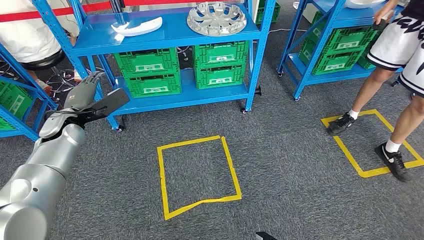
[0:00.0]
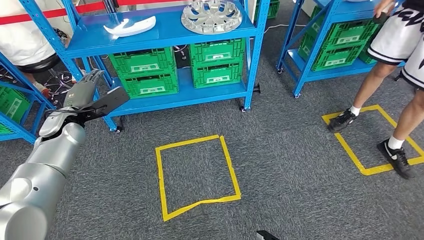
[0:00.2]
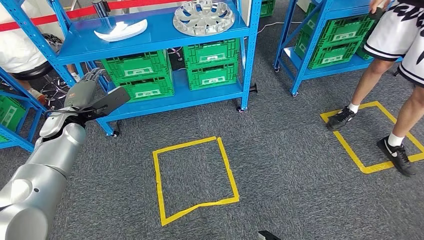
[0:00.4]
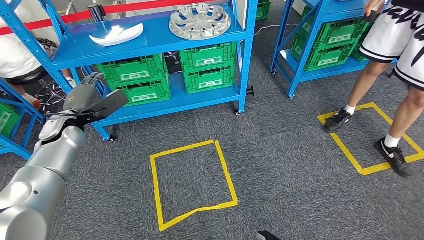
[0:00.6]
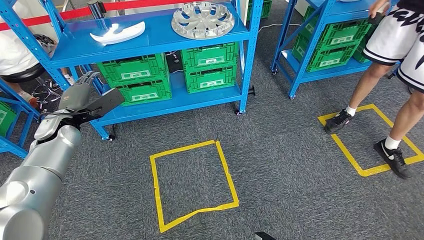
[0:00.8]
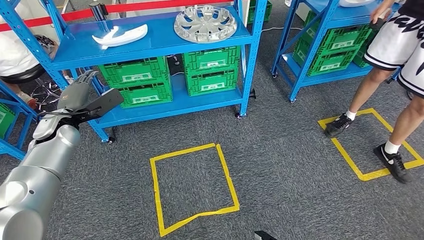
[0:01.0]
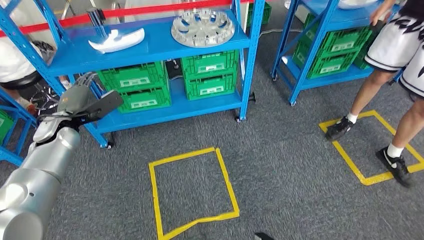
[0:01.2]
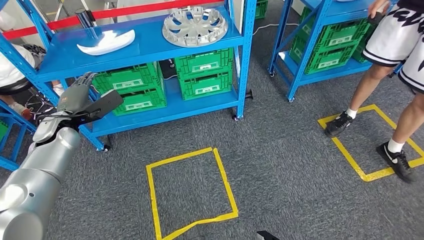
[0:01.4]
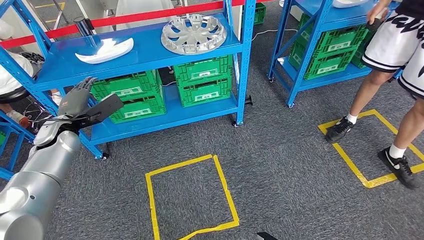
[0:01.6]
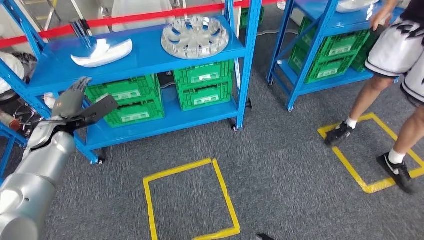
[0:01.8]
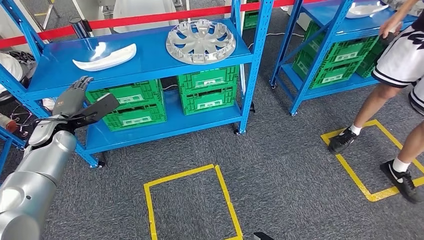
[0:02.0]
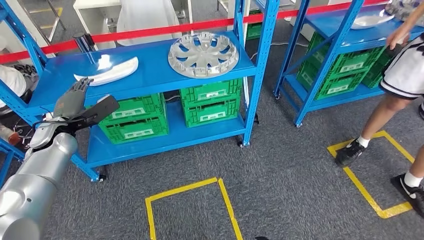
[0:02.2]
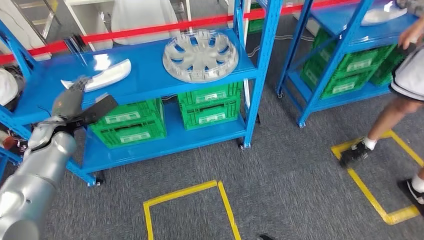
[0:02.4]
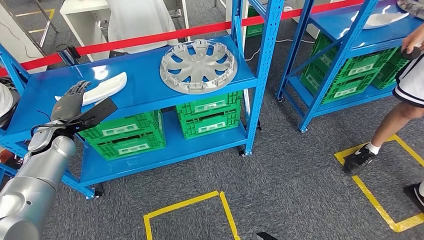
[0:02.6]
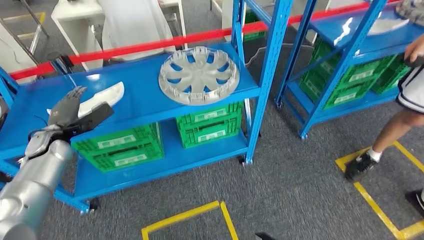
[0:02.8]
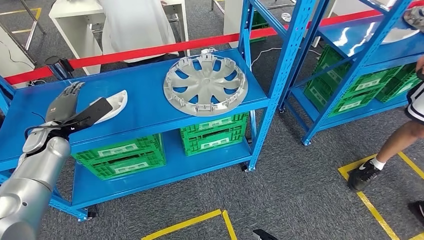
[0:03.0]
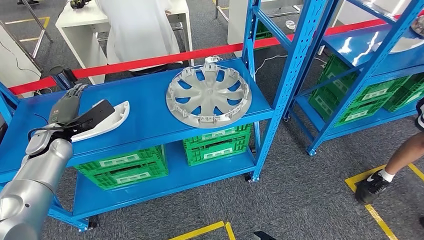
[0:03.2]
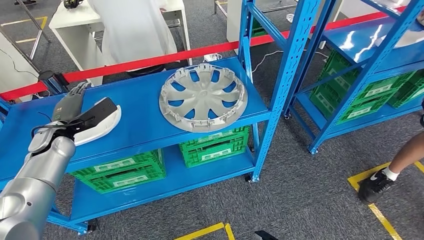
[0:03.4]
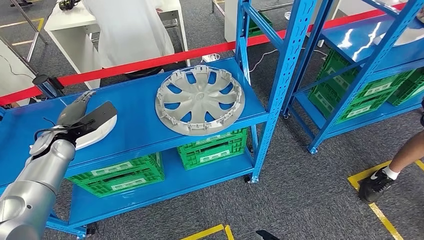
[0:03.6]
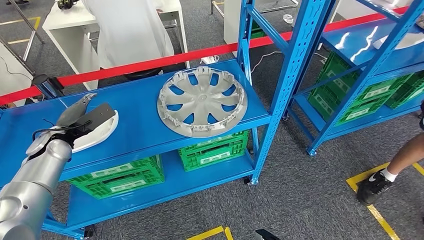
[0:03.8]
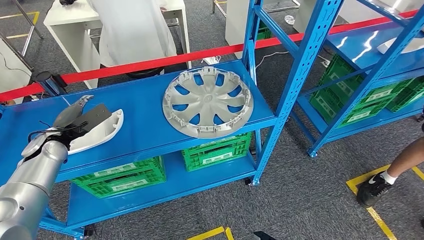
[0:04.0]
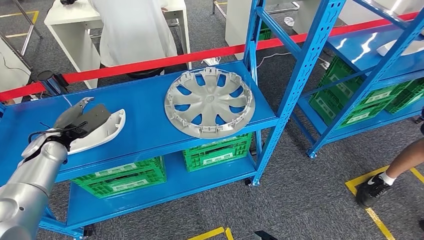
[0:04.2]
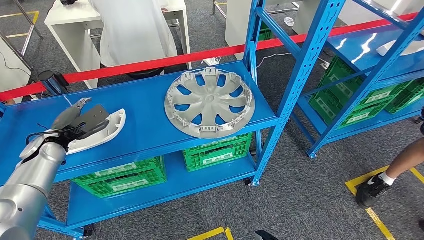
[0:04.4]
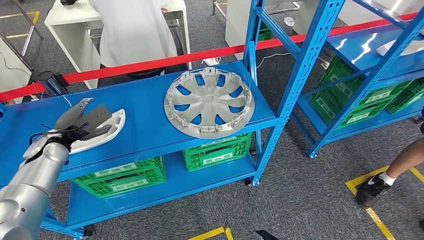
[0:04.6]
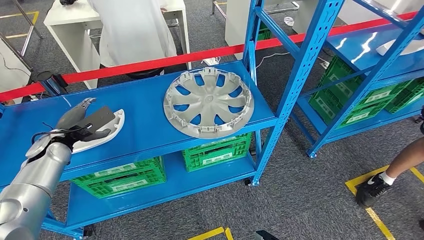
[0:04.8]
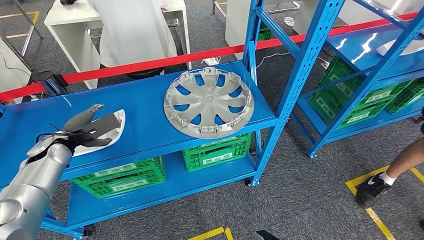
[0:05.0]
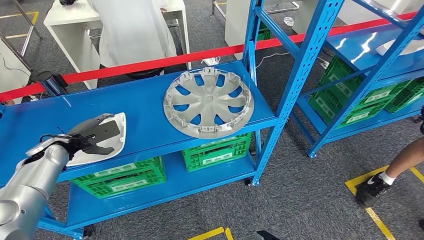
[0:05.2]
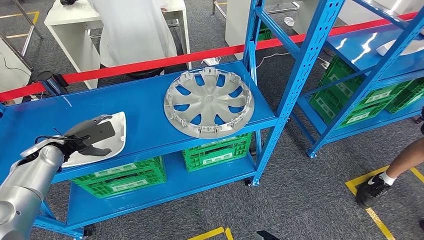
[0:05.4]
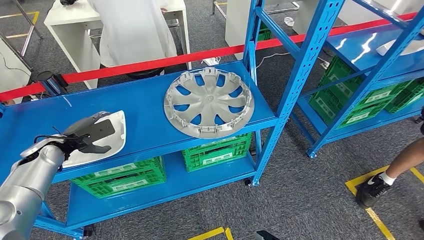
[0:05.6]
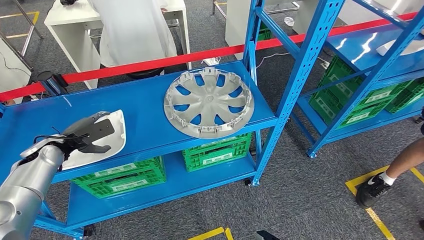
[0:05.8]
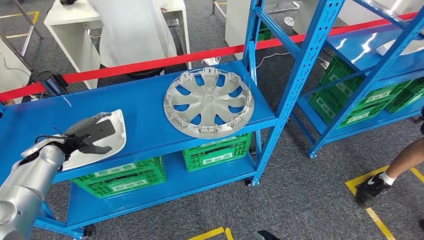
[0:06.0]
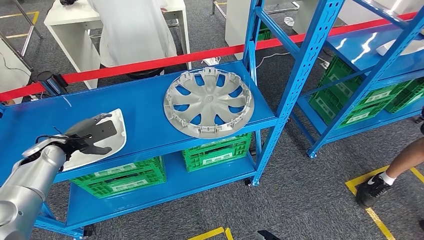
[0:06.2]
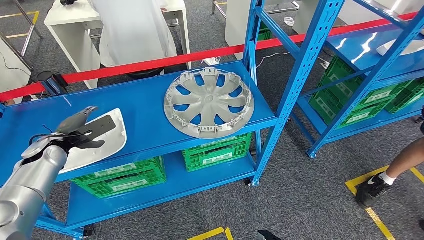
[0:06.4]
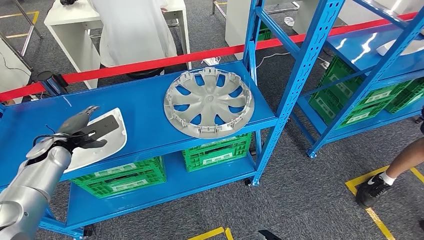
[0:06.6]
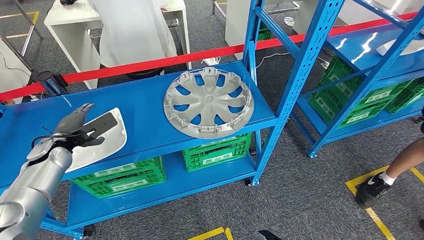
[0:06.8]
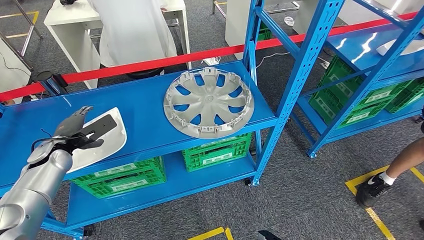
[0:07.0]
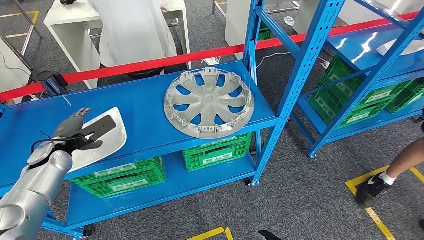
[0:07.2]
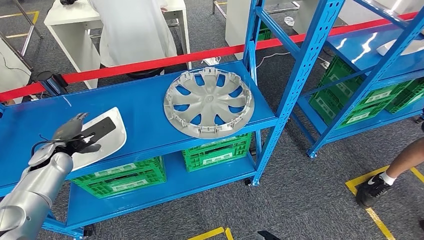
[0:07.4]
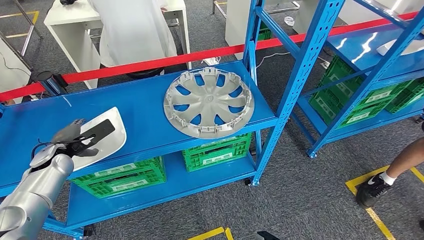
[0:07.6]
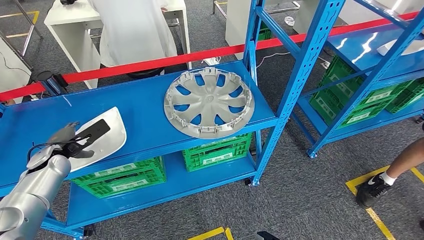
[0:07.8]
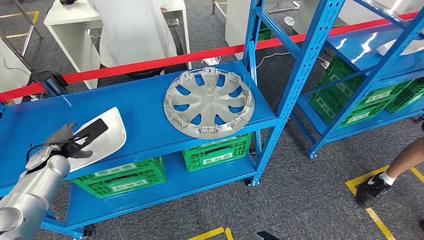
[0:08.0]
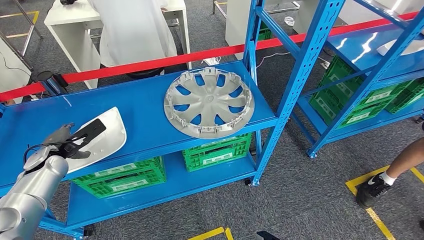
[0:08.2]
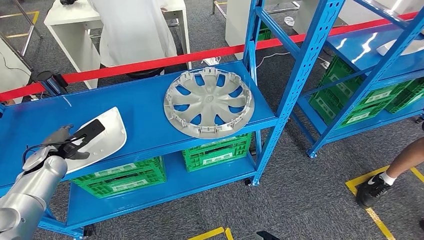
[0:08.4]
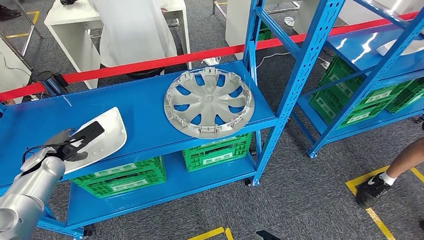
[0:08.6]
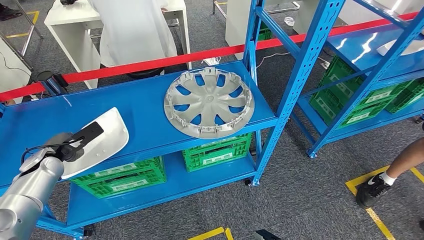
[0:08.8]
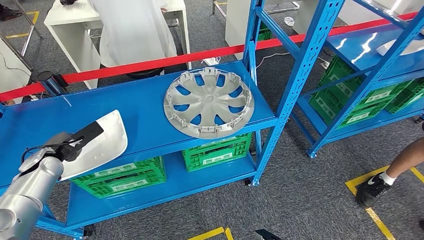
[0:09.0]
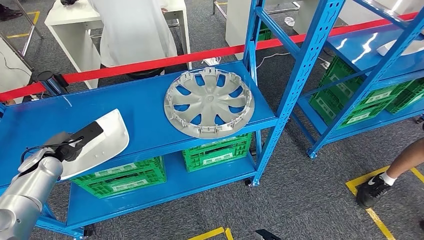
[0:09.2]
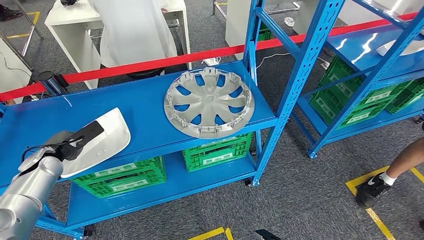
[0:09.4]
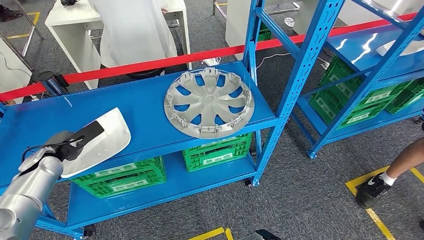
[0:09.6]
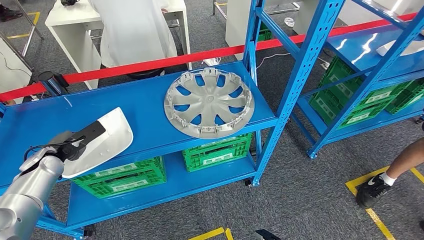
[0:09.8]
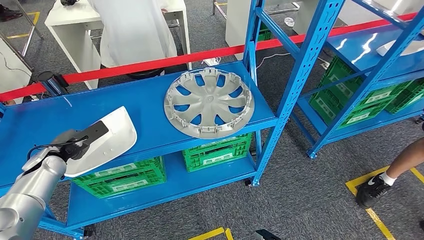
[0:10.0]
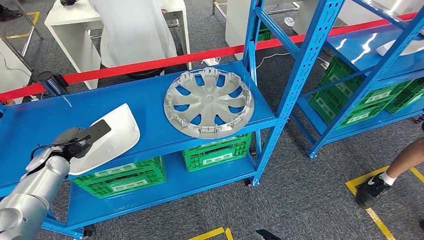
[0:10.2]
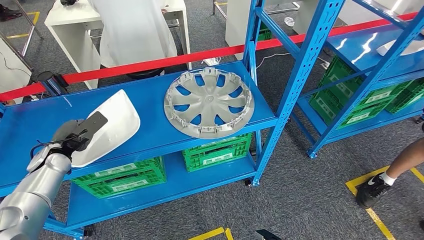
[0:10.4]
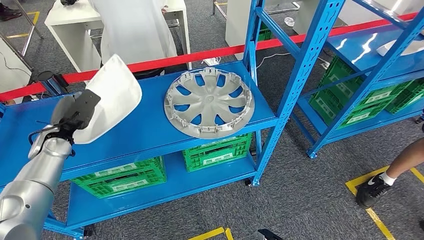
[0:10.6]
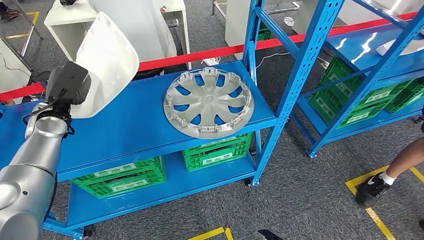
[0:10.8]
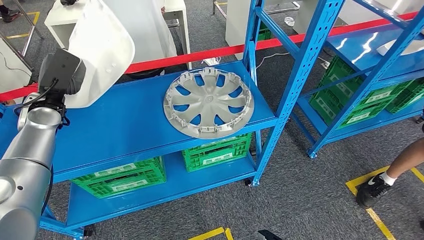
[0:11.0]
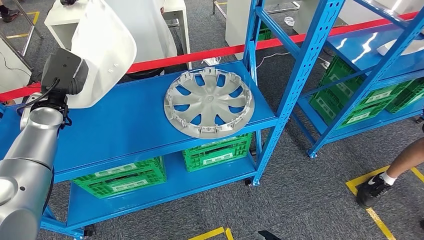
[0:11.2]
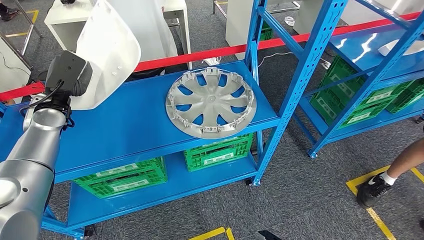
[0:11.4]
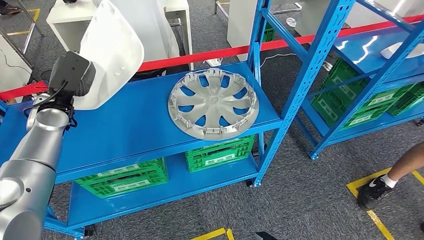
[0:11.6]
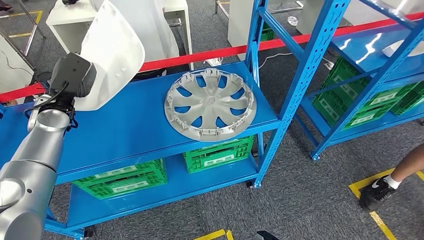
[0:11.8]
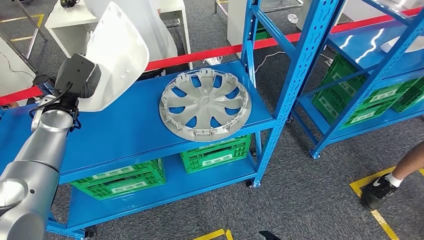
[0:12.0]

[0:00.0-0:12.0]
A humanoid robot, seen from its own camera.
Step, 0:00.0 to 0:12.0: Pick up the small component from the shelf.
0:04.4 to 0:06.0: There are only small adjustments of the hands.
0:07.6 to 0:10.4: The hands make only small movements.

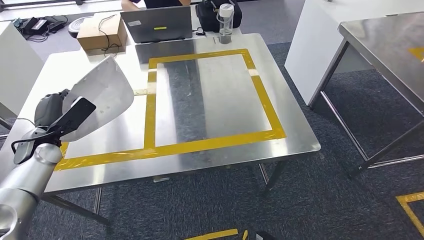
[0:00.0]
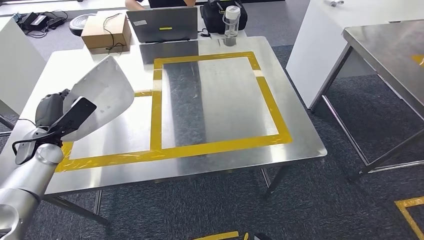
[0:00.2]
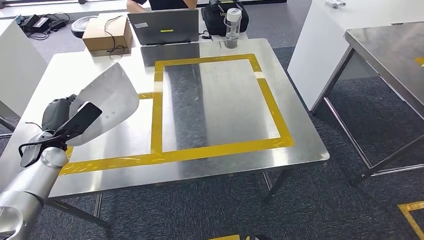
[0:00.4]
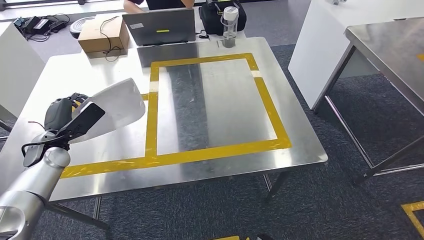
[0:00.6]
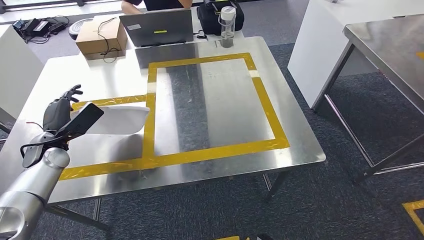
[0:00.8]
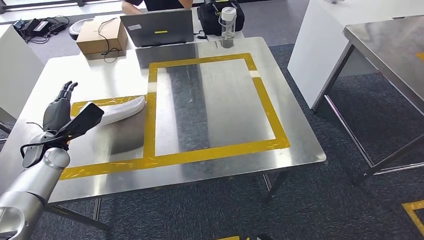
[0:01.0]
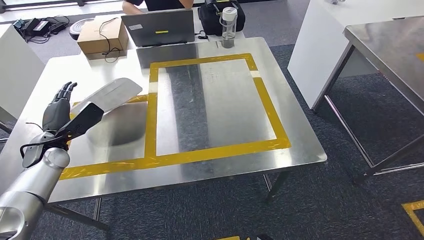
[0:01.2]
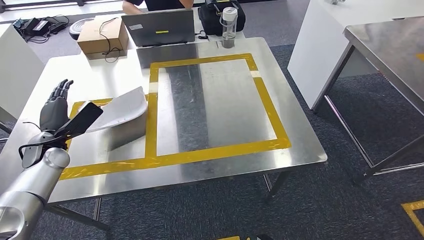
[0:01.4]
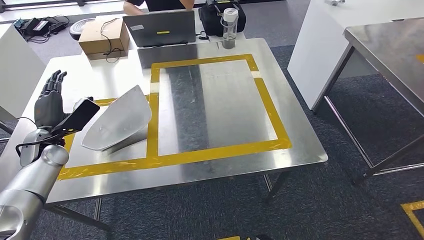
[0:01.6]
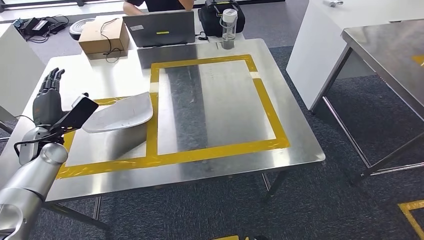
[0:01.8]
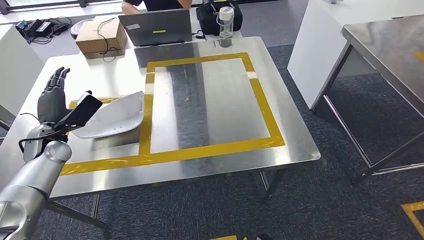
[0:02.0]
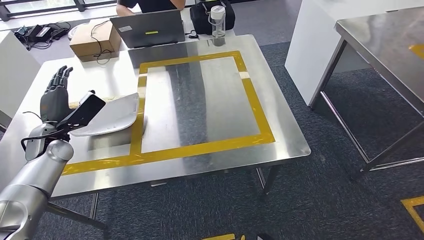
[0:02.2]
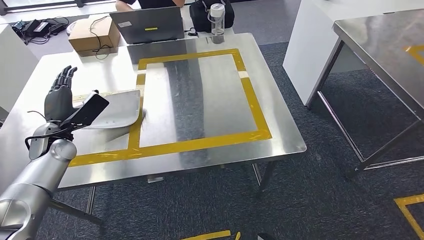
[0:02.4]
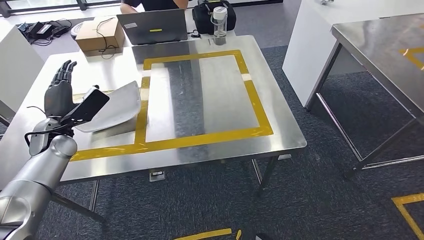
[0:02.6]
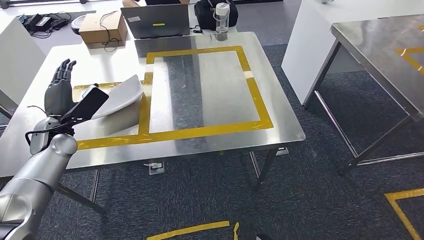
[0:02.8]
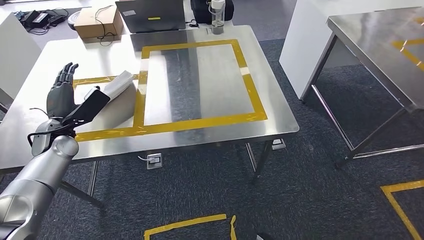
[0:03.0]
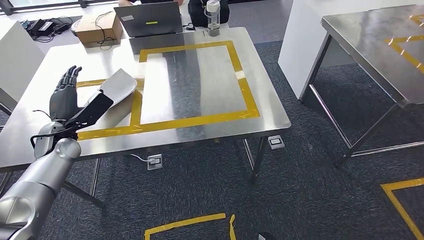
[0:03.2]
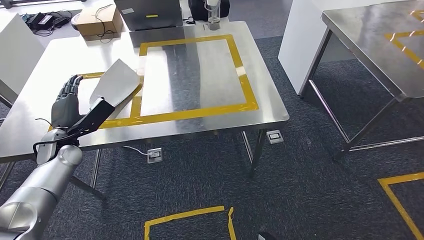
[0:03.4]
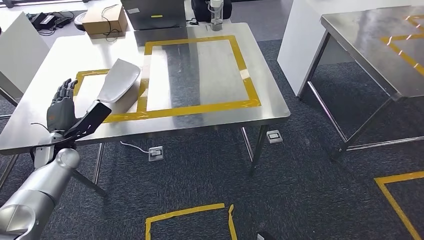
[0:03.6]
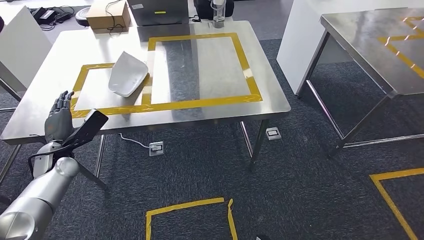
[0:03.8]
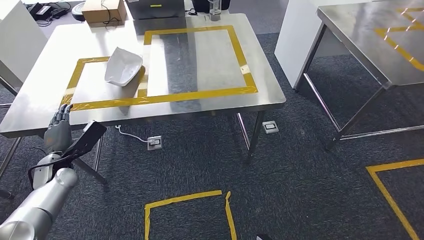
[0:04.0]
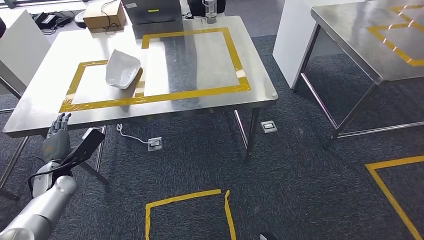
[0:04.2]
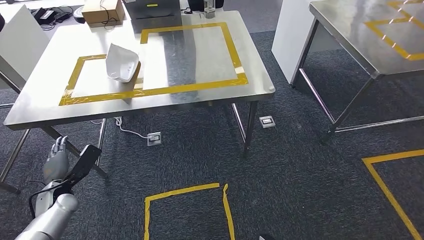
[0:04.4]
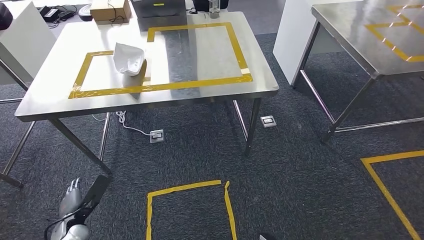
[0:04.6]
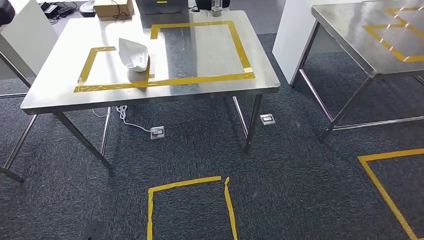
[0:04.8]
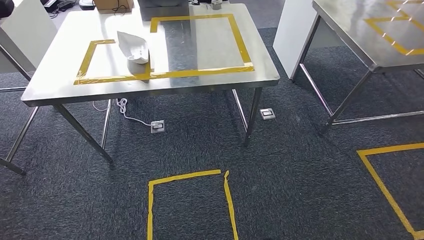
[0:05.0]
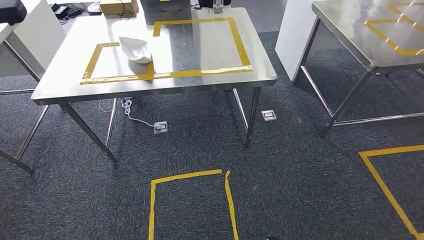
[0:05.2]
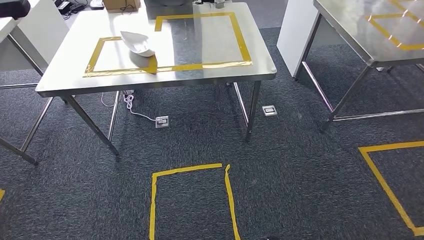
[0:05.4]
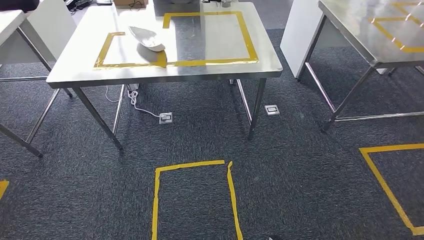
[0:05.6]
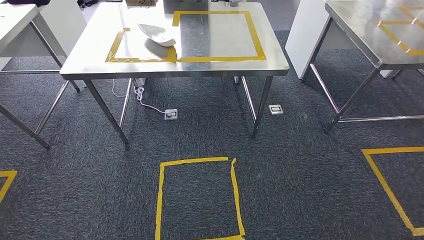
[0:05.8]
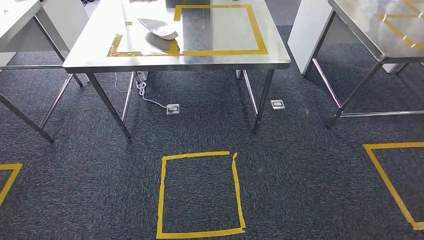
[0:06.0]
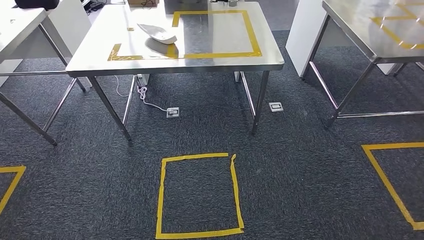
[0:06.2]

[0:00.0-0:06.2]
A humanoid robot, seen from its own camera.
Step, 0:00.0 to 0:02.2: Insert the small component into the corresponding slot on the workbench.
Step, 0:02.8 to 0:06.2: Move to the initial position at the workbench.
